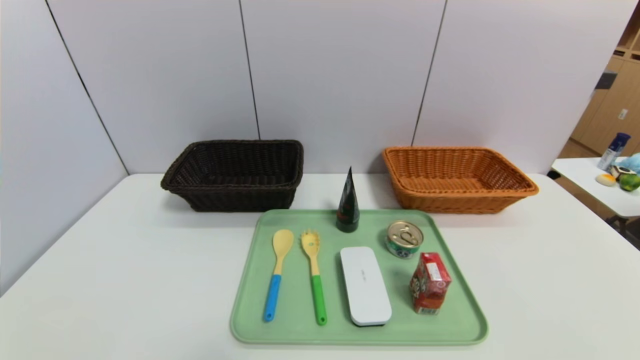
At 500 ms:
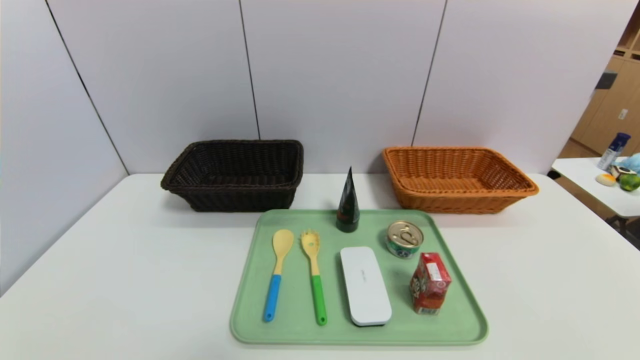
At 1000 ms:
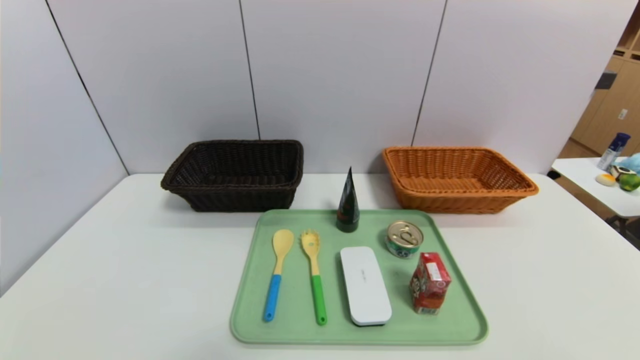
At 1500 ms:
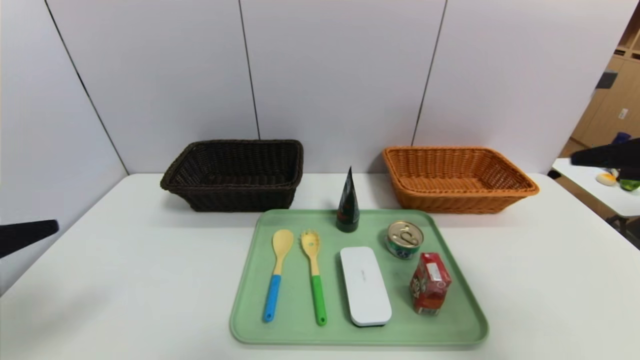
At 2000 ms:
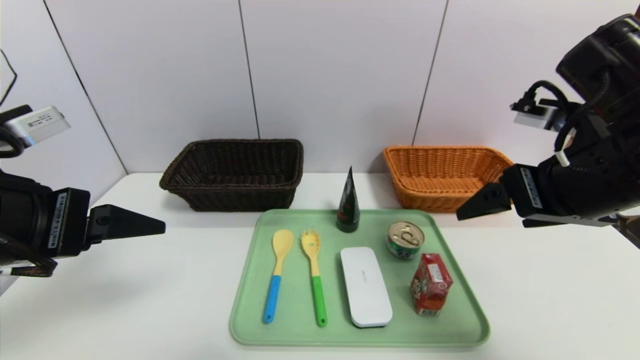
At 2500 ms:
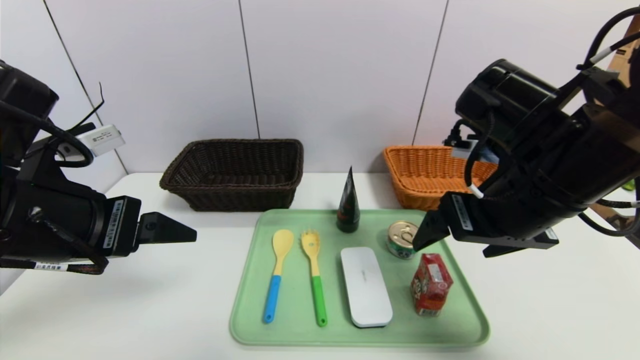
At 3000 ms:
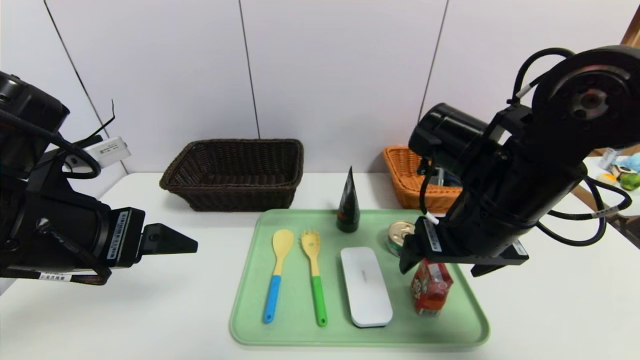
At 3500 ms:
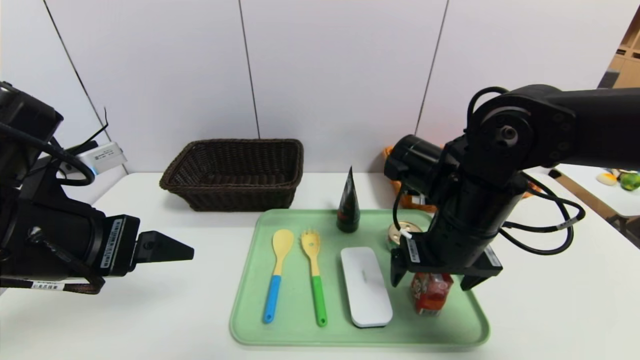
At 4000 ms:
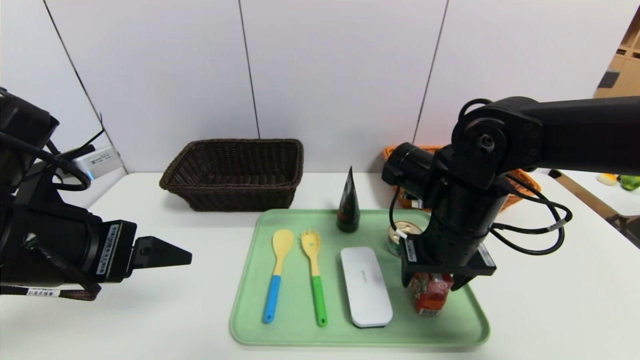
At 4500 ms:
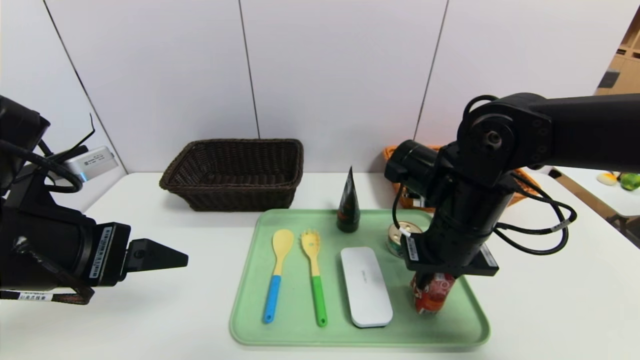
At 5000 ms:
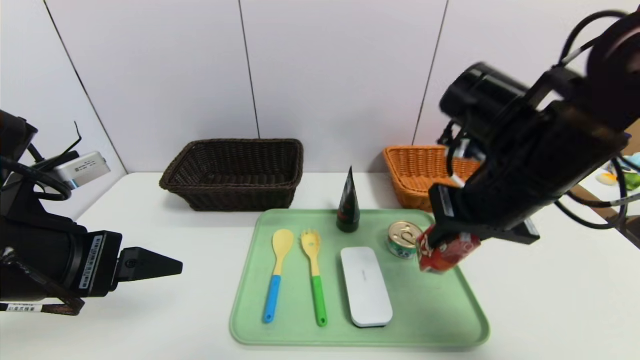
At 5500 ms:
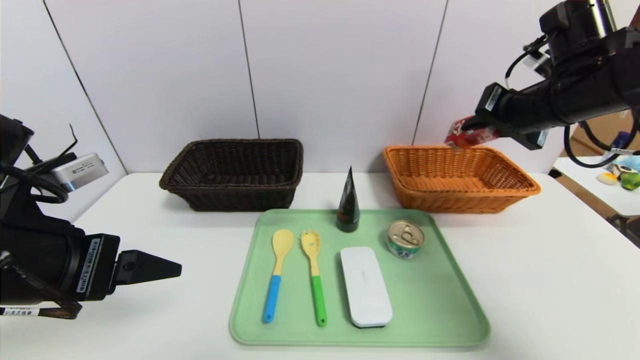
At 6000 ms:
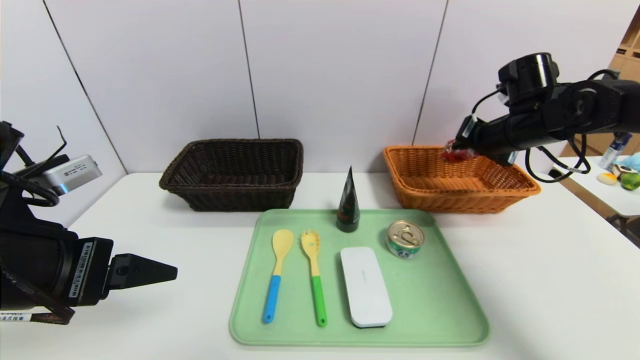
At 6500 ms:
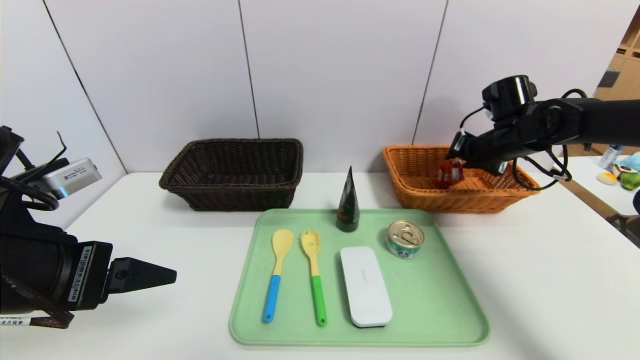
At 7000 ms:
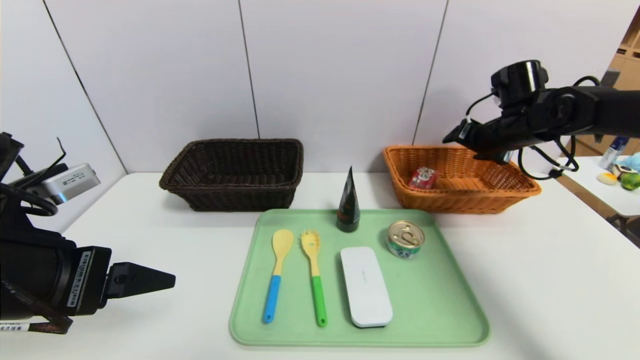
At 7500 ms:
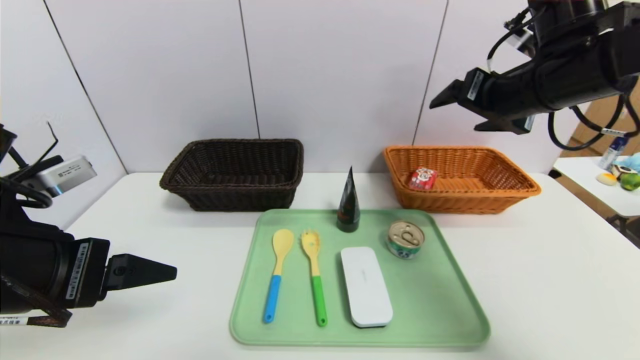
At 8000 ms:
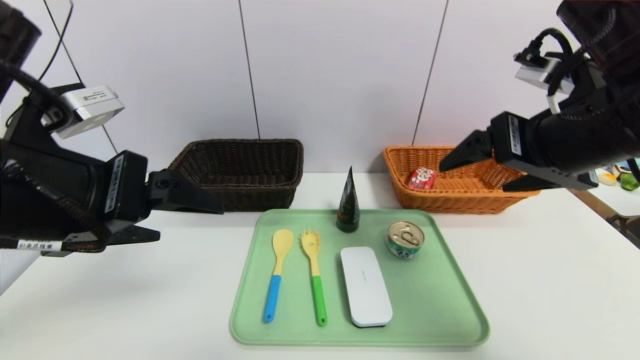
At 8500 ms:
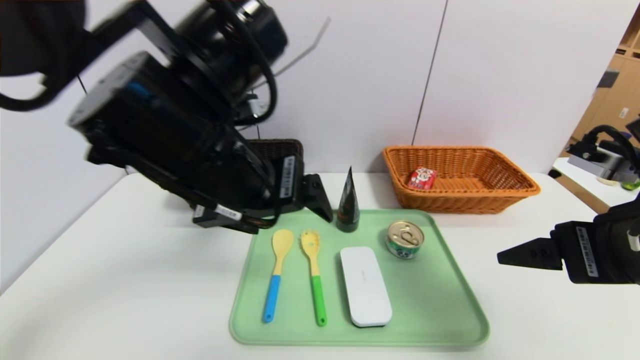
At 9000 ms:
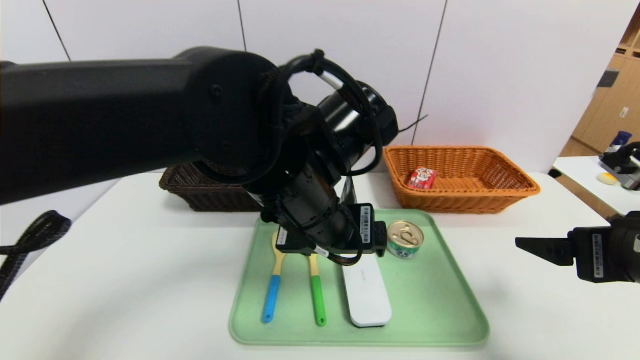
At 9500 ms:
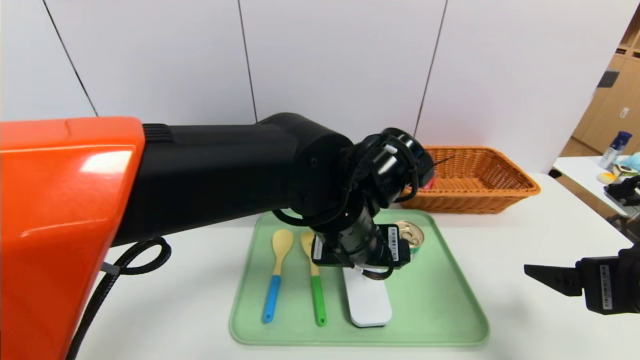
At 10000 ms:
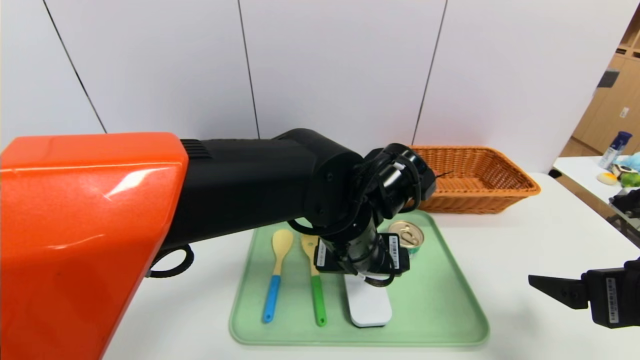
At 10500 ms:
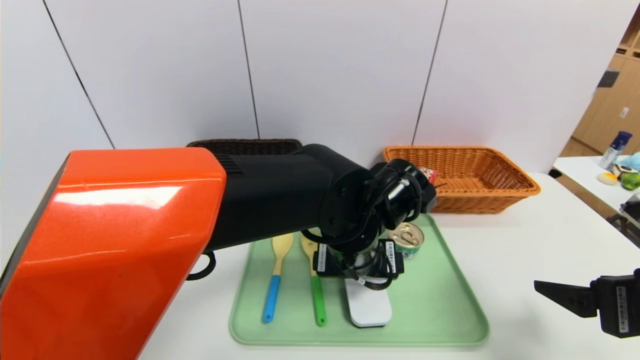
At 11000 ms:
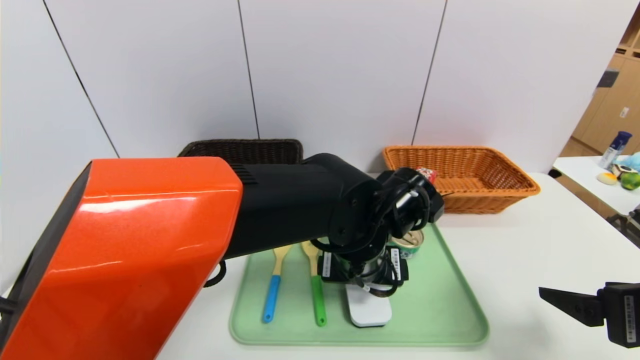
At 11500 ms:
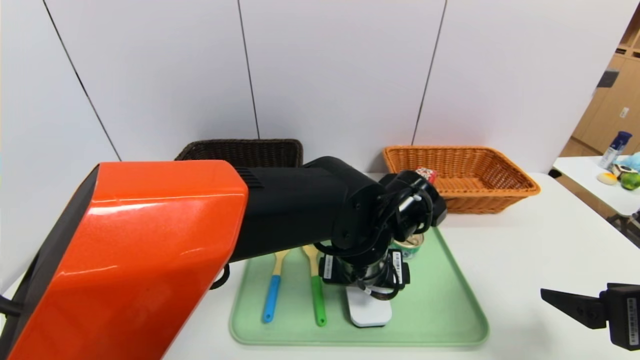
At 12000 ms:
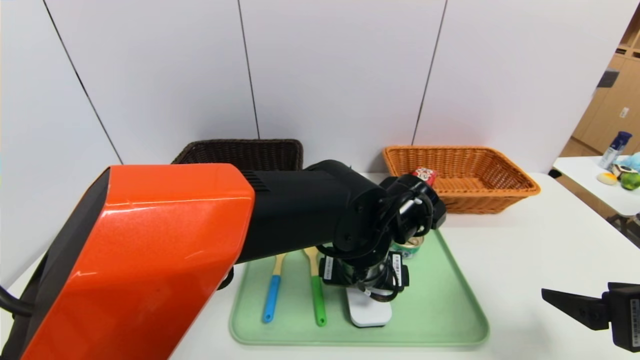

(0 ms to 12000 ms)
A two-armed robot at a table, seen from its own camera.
Task of the whole recording: place the food in the right basket with the right gripper, and place the non food items in the left basket with the left gripper.
Step, 0 ms - 6500 ms: Grasp the ad milk and put it in the right basket.
0 ms - 2000 ms: The right gripper heads forward, upward and to the left, covering some 35 cm; the left gripper is displaced upward and forward by about 25 cm.
2000 ms - 4000 ms: The right gripper shifts about 15 cm downward, to the left and forward, and closes its fingers.
4000 ms - 6000 ms: The right gripper travels to the right and forward by approximately 20 cm, and closes up.
6000 ms - 8000 ms: The right gripper travels backward, upward and to the left by about 20 cm, and opens. Meanwhile the left gripper goes roughly 5 cm upward.
8000 ms - 10000 ms: The right gripper is displaced downward, backward and to the right by some 15 cm; the left gripper shifts approximately 25 cm to the right and downward.

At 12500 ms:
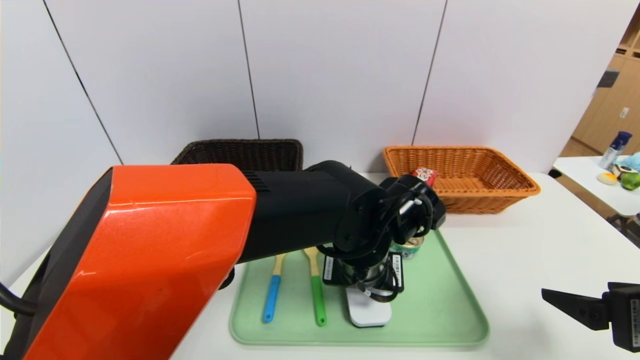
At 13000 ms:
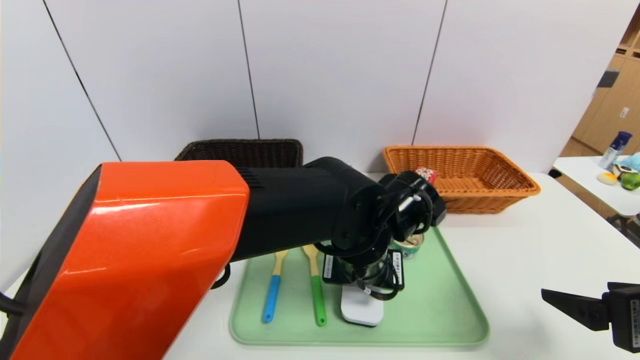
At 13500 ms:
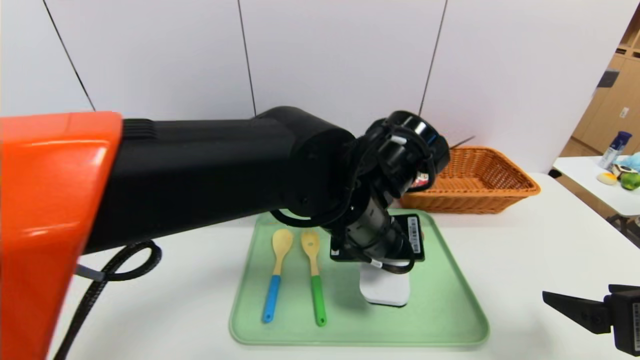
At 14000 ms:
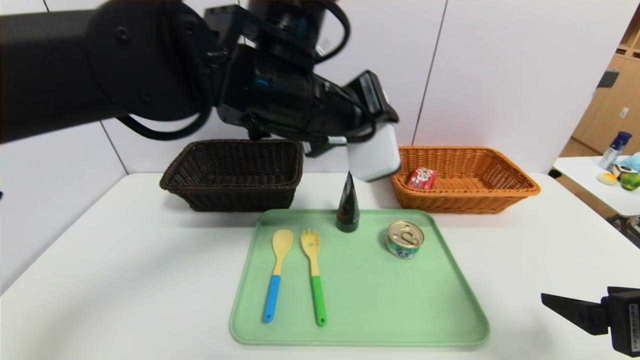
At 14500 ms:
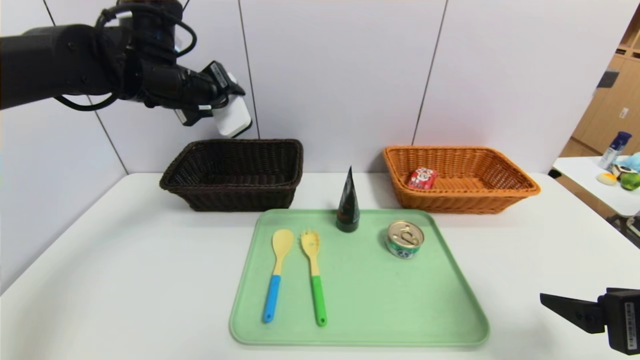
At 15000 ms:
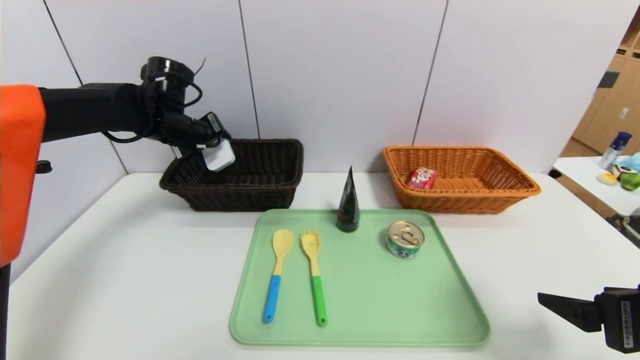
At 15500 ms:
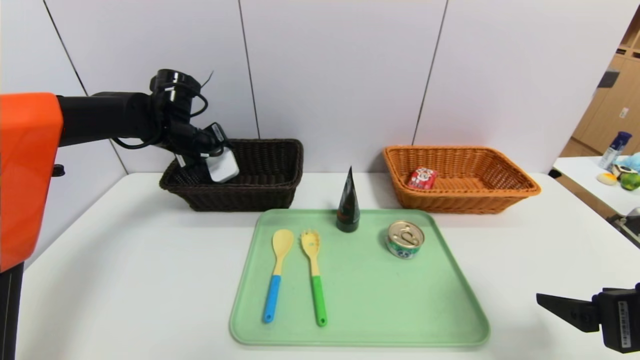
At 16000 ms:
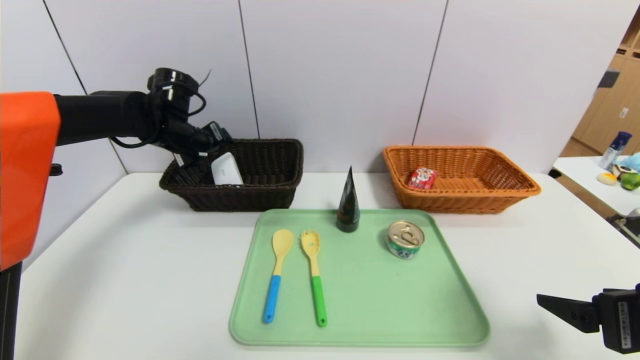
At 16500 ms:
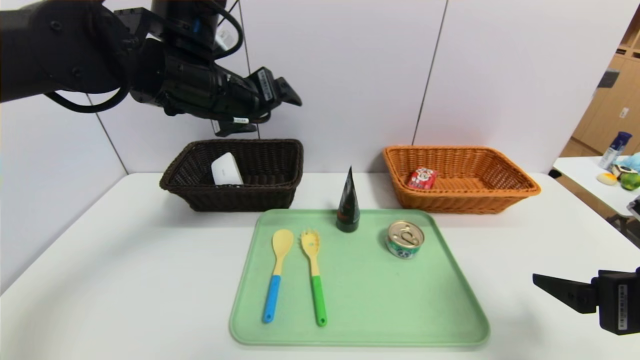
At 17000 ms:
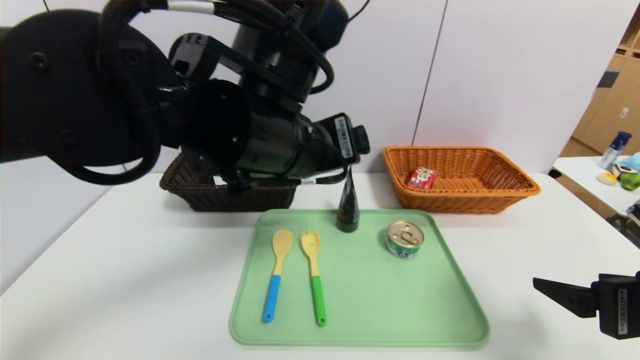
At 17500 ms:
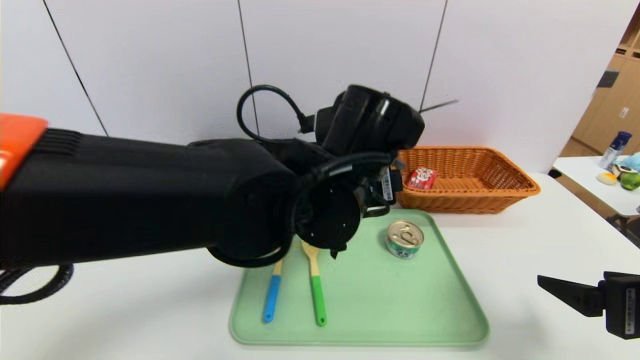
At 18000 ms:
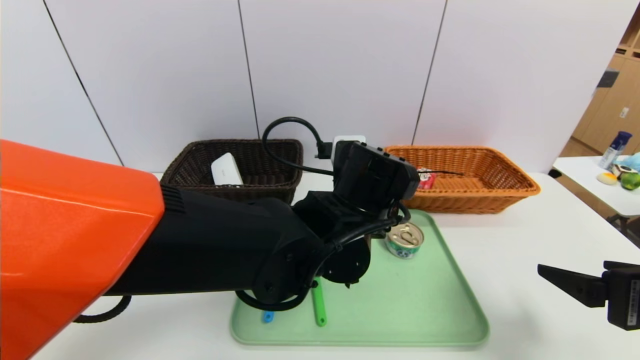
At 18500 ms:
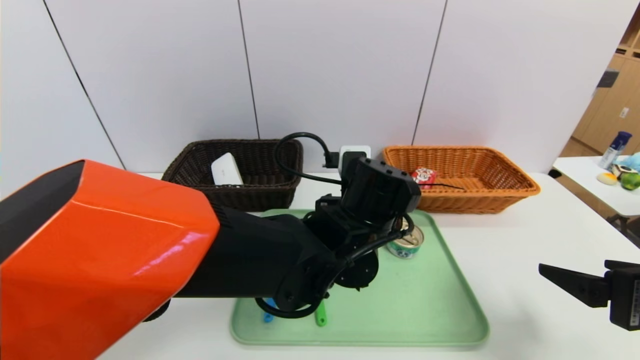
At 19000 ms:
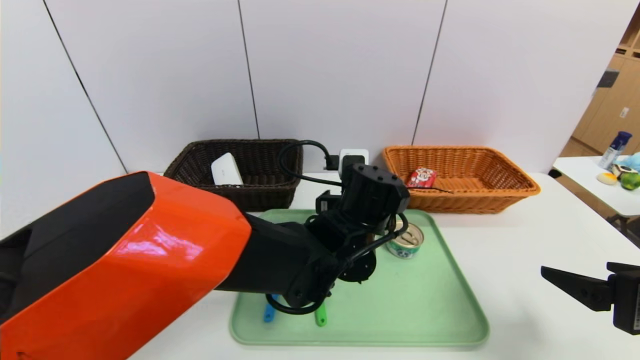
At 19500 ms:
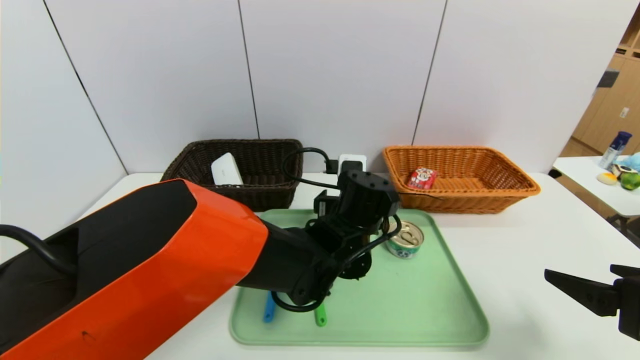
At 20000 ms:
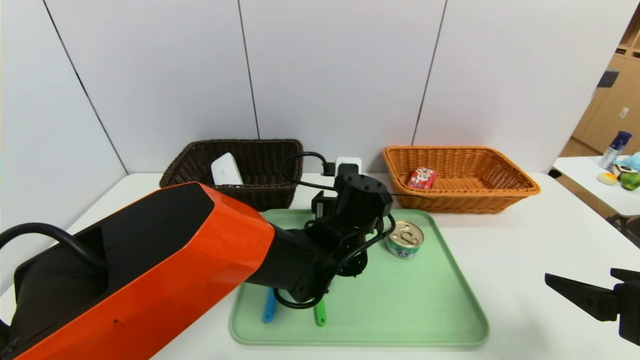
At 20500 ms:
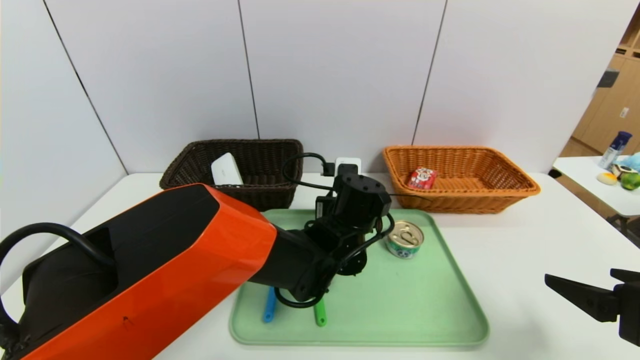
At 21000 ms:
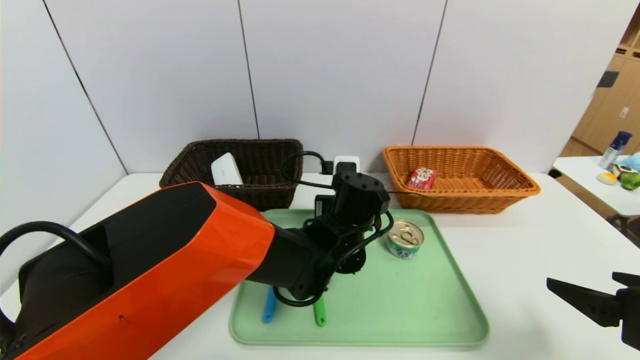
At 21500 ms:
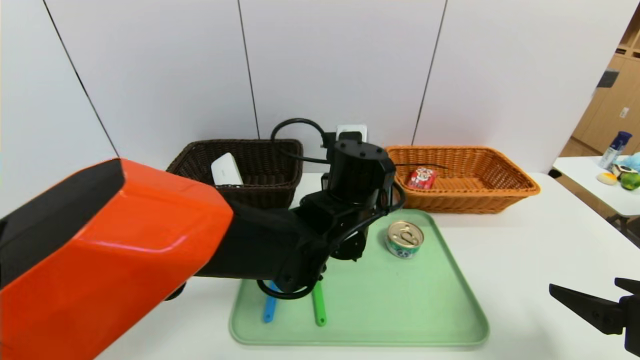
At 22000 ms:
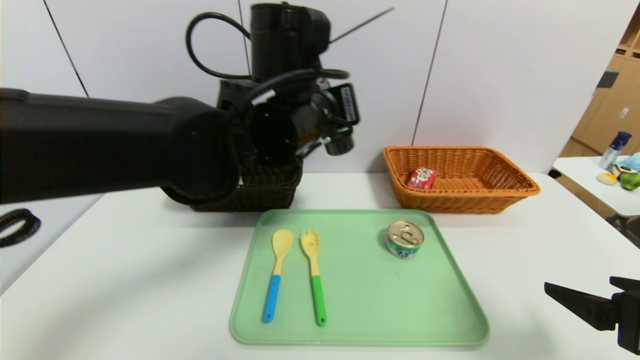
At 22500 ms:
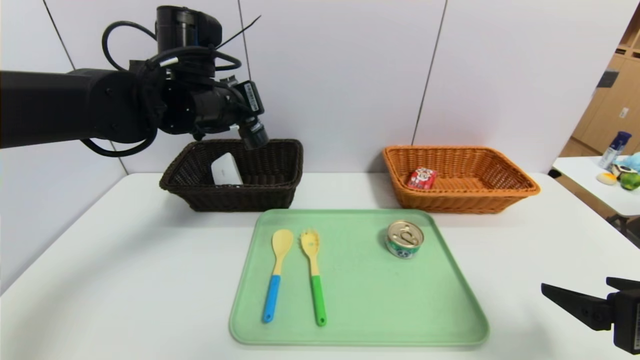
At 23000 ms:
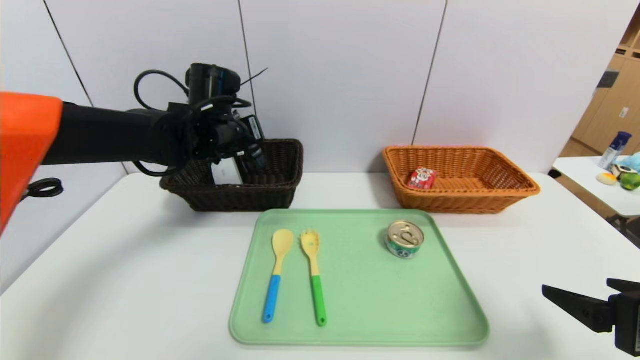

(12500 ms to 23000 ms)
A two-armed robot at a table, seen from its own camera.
Task of the whole recording: place the food in the right basket with the right gripper, and place the non food items in the left basket with the left gripper.
Step, 12500 ms - 16000 ms: Grasp the compass and put it in the left basket.
12500 ms - 14500 ms: The left gripper travels to the left, upward and forward by some 35 cm.
14500 ms - 16500 ms: The left gripper moves to the right and backward, about 15 cm, and opens up.
16500 ms - 19000 ms: The left gripper heads downward and to the right, covering approximately 25 cm.
19000 ms - 21000 ms: The left gripper closes up.
21000 ms - 23000 ms: The left gripper goes approximately 25 cm to the left, upward and forward.
